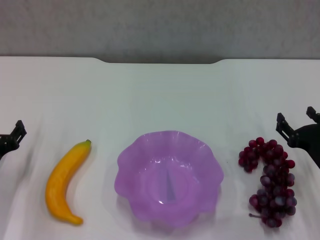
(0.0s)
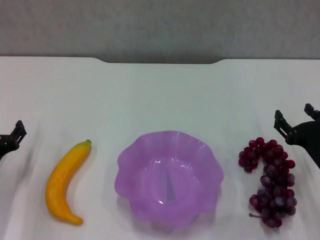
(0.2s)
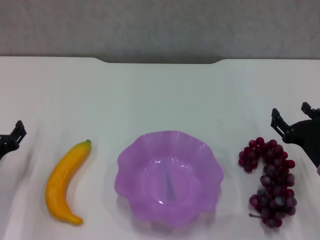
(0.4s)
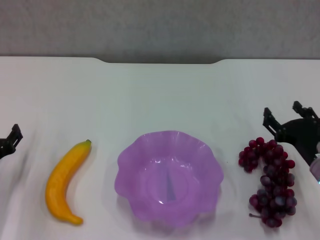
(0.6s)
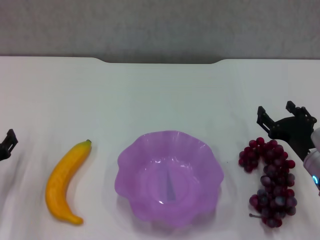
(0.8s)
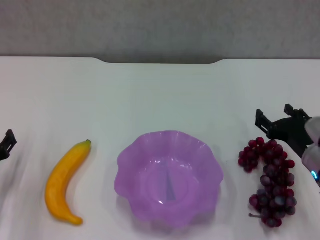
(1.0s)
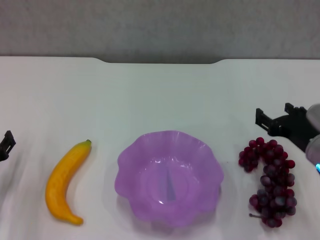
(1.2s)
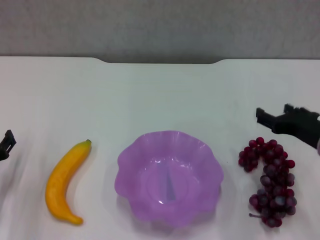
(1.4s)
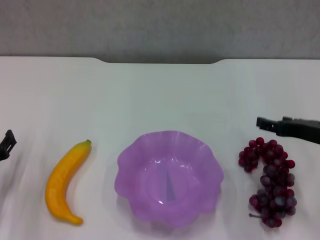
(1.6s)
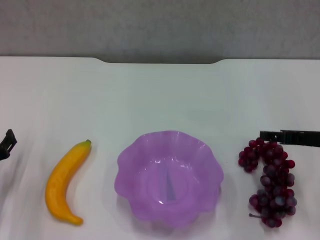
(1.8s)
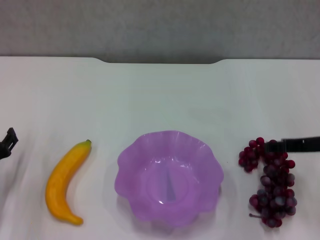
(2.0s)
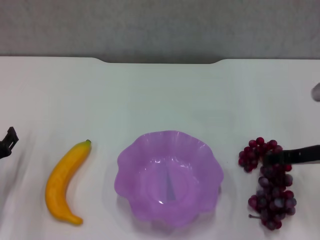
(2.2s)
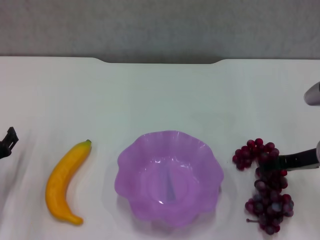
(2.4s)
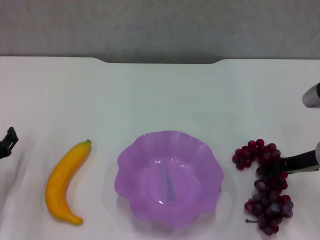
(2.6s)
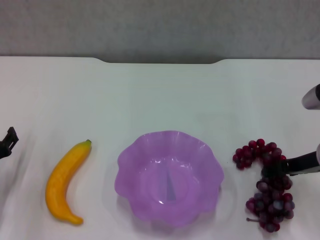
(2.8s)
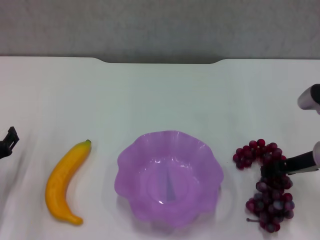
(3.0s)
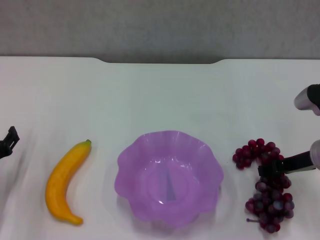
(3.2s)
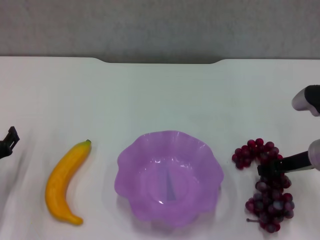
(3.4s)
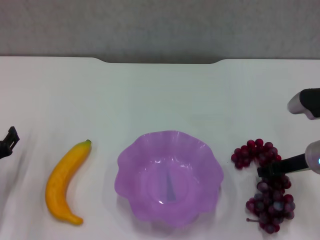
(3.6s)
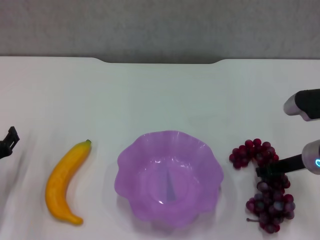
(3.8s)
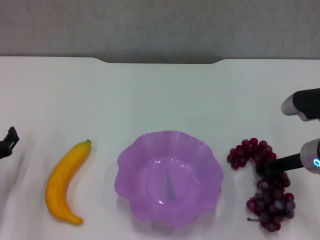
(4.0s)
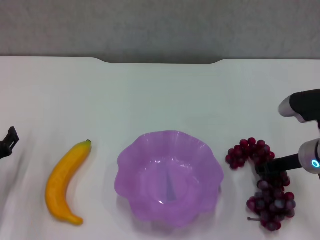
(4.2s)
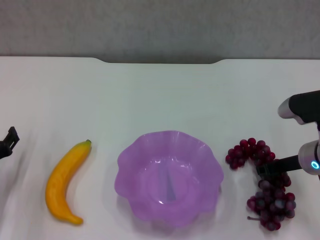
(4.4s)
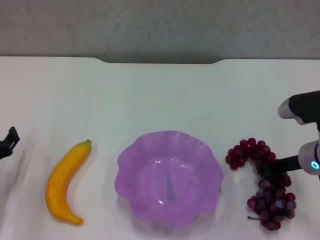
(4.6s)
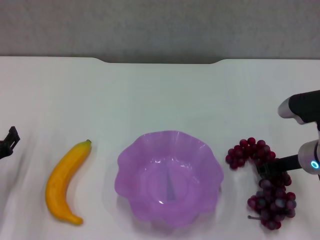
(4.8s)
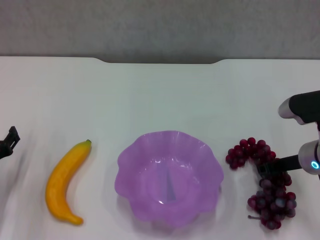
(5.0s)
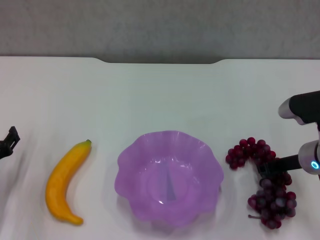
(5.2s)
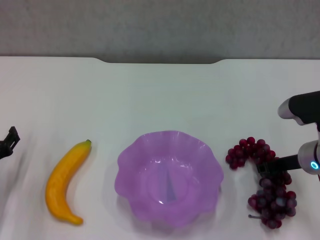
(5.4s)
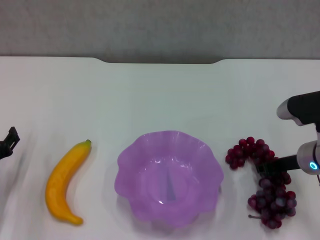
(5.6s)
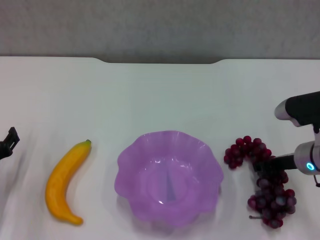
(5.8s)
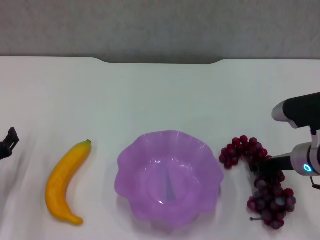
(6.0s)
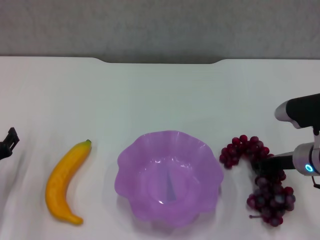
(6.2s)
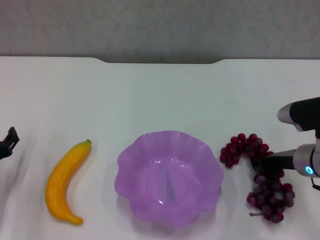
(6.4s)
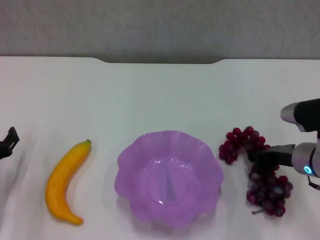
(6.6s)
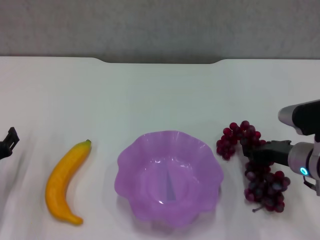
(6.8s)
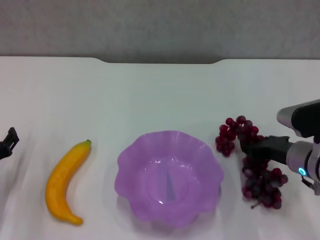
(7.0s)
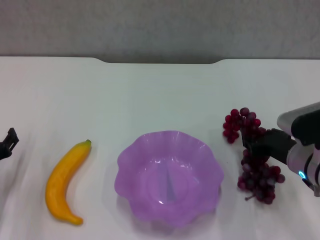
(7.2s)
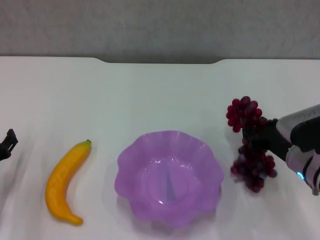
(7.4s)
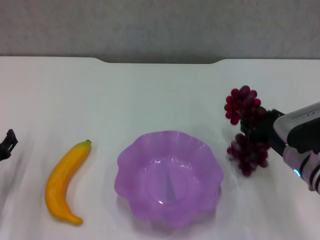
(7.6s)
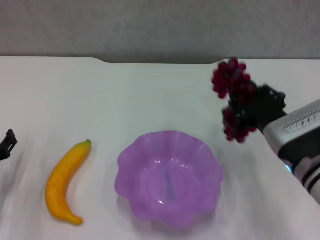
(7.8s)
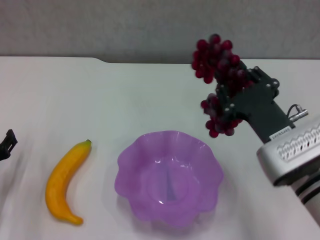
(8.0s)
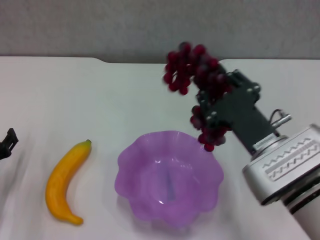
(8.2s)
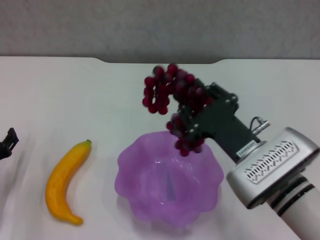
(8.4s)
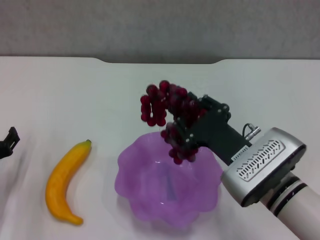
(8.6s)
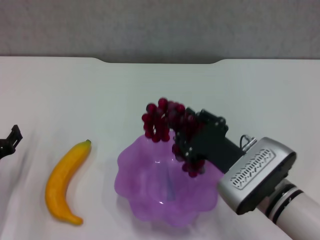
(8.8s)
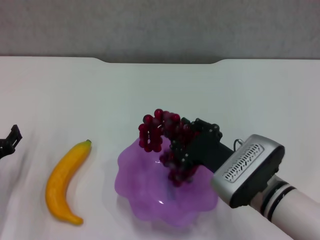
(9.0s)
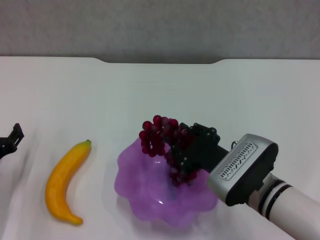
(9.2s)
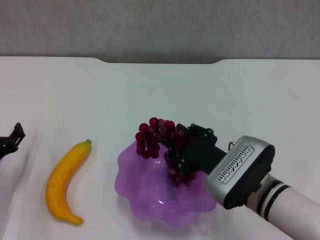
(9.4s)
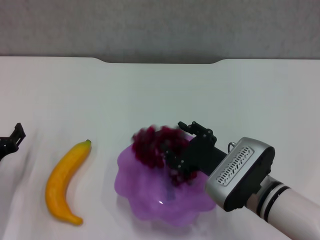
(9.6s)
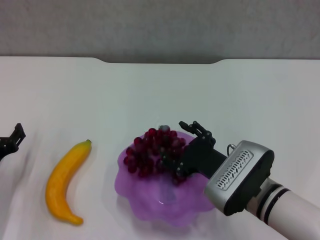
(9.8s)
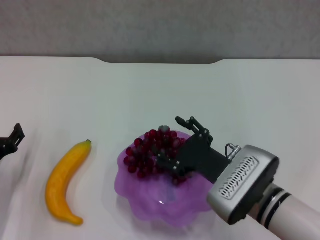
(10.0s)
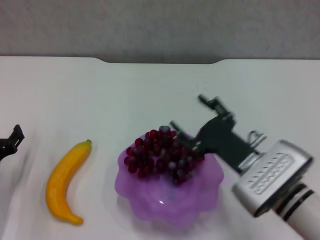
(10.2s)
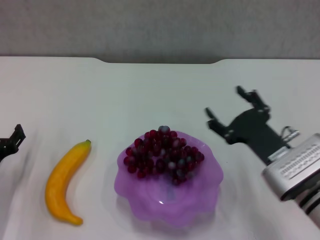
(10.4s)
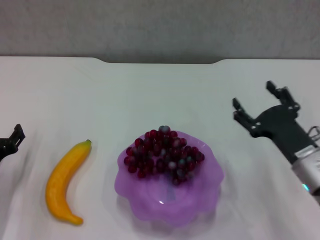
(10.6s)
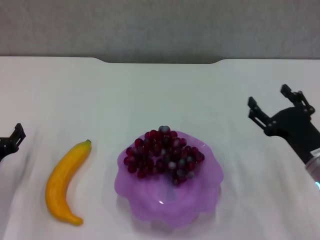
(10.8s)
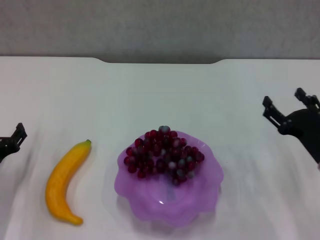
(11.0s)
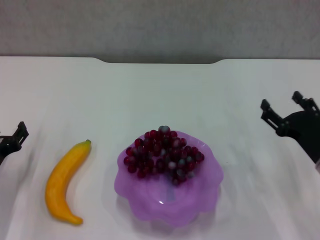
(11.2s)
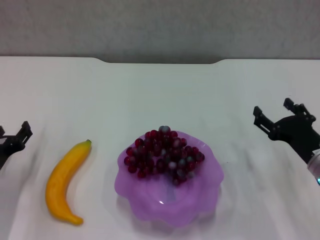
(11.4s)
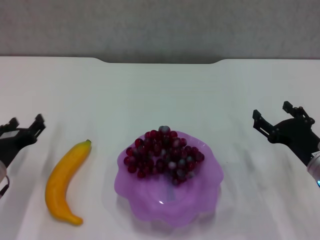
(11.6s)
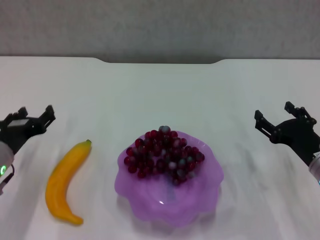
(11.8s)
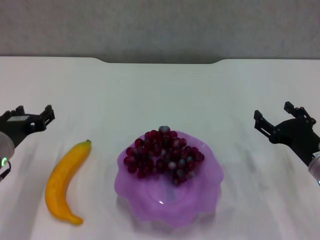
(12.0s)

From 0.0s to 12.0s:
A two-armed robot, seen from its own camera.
Step, from 0.0s to 4.4s: Grasp the grape with right gripper.
Step, from 4.8s to 10.2s: Place the grape in the purple plate with right gripper.
From 0.0s to 1.6s: The right gripper travels upward by approximately 10 cm.
From 3.0s to 4.4s: The right gripper closes up.
From 4.4s to 6.0s: Both grippers stay put.
From 7.6s to 9.0s: The right gripper goes roughly 10 cm to the left.
From 9.0s to 10.4s: The right gripper shifts approximately 5 cm to the right, and opens up.
From 10.4s to 12.0s: The left gripper heads upward and to the right, covering some 10 cm. The right gripper moves to the right, about 10 cm.

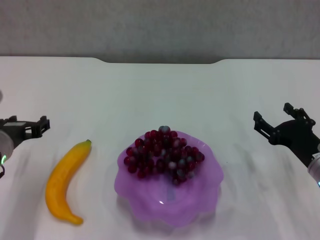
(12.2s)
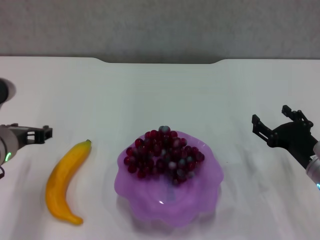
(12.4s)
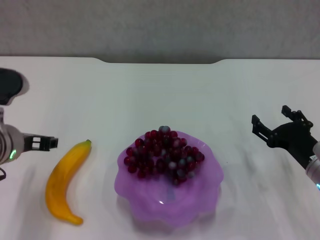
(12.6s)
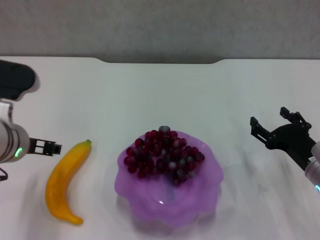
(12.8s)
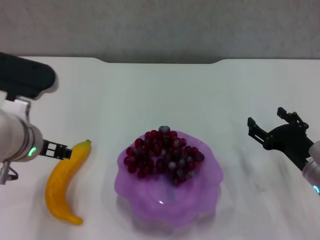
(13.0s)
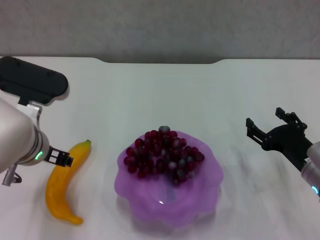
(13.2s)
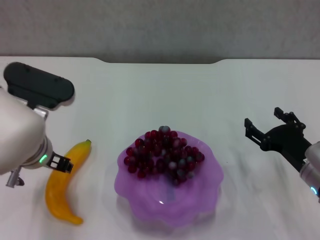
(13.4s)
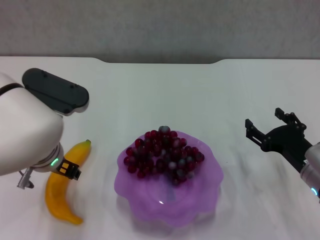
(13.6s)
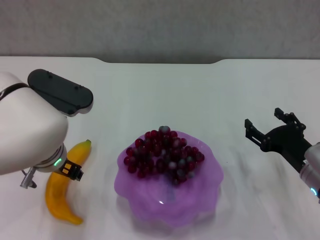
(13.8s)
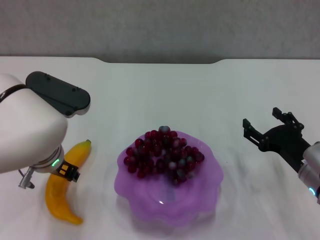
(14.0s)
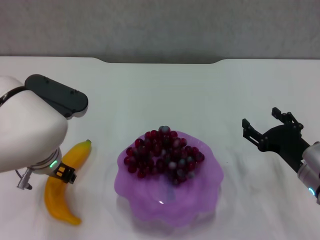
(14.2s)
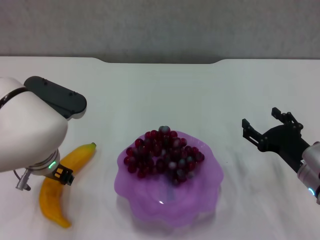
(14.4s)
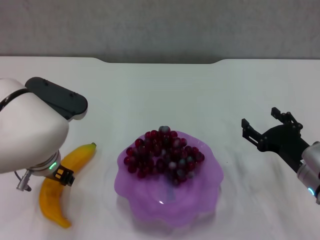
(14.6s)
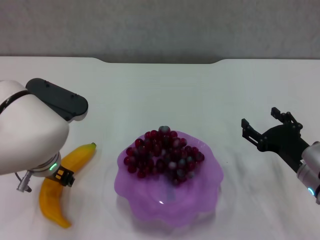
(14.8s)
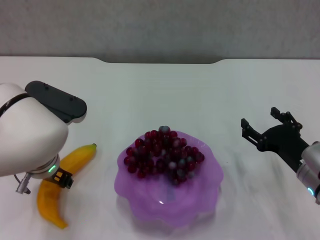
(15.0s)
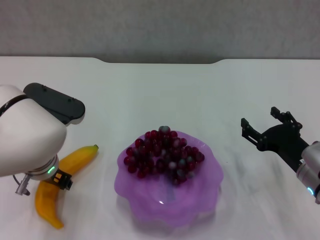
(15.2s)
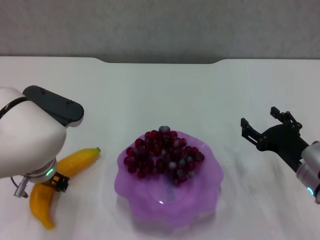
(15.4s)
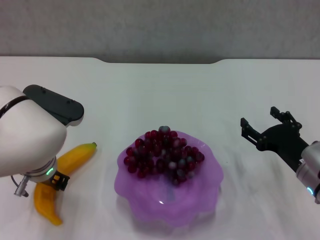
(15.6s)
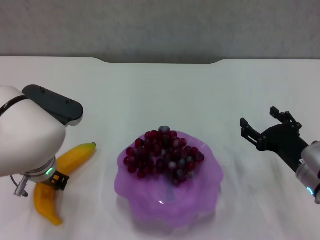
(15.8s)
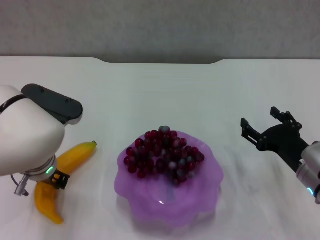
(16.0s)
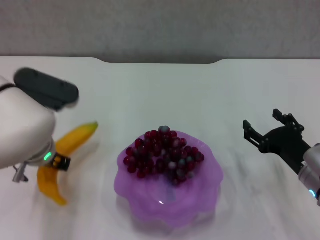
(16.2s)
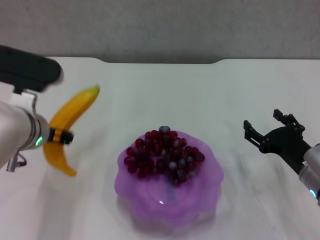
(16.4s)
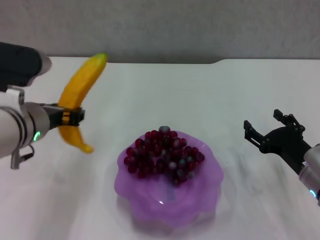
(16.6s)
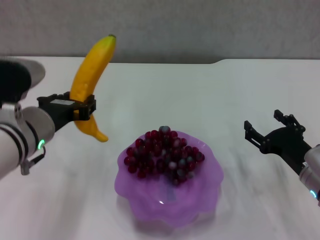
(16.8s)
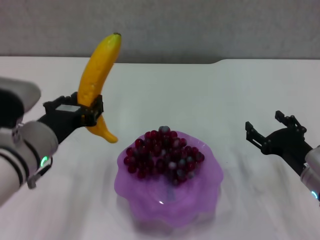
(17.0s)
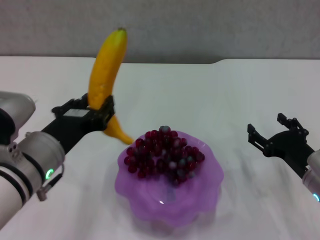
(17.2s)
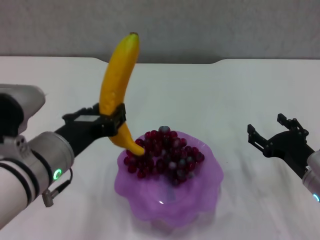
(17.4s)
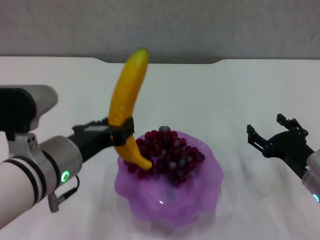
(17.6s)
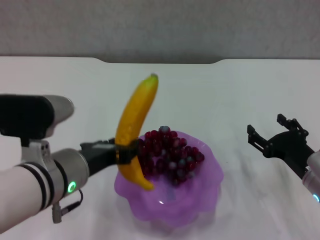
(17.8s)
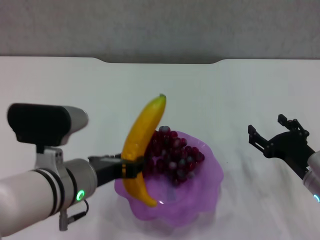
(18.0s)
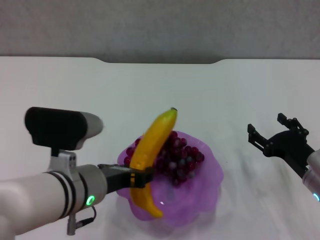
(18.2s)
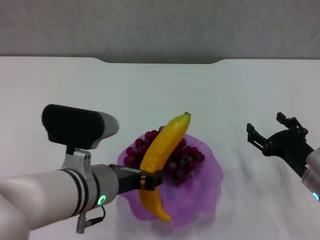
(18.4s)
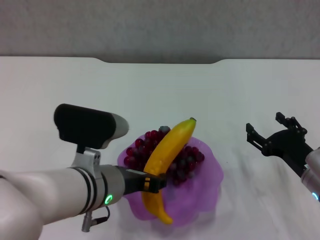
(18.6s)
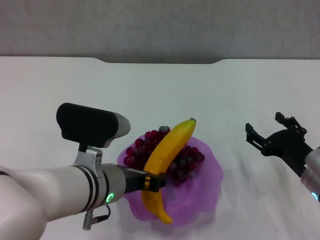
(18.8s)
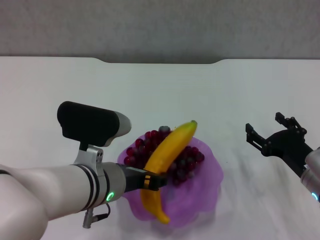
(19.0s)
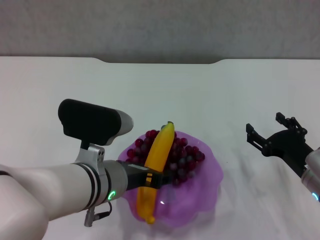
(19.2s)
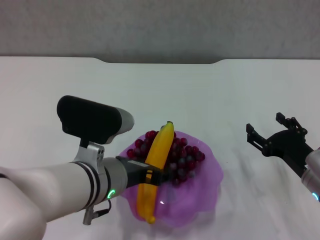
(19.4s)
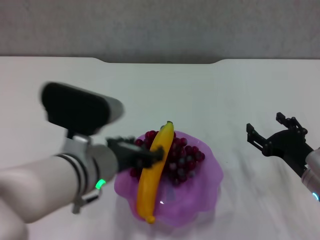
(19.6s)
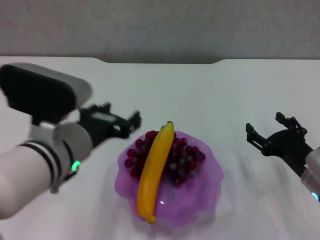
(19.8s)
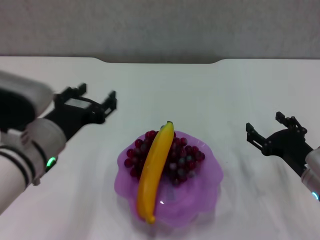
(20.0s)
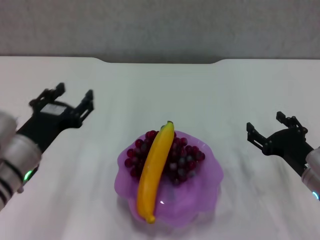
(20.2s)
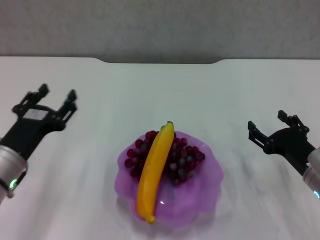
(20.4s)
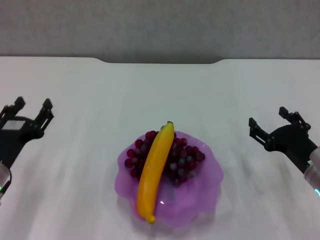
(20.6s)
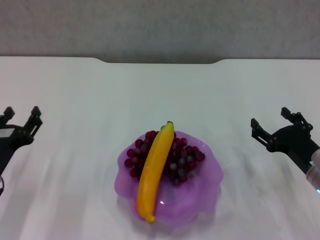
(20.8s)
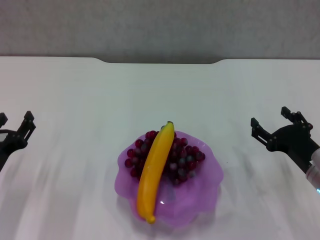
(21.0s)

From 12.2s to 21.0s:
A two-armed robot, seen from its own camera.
Step, from 12.2s to 15.6s: Grasp the banana with left gripper.
Step, from 15.8s to 19.6s: Place the banana in the purple plate with left gripper.
From 12.2s to 13.6s: The left gripper shifts some 10 cm to the right.
From 13.6s to 15.2s: The grippers stay close to where they were, moving slightly.
From 15.2s to 16.6s: The left gripper travels upward by about 5 cm, and closes its fingers.
From 16.6s to 18.0s: The left gripper moves backward and to the right, roughly 10 cm.
From 18.0s to 19.6s: The left gripper opens its fingers.
From 19.6s to 21.0s: The left gripper heads to the left and downward, covering about 20 cm.
